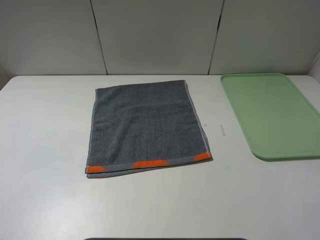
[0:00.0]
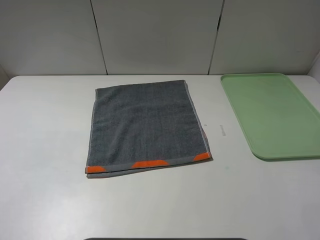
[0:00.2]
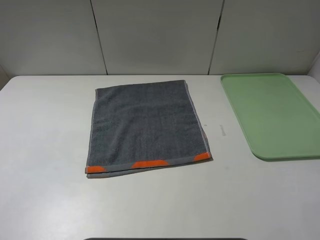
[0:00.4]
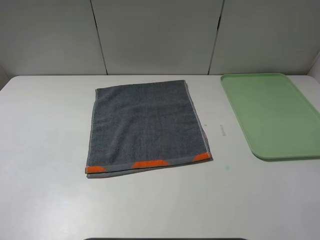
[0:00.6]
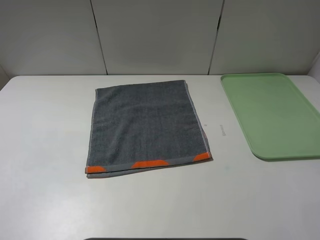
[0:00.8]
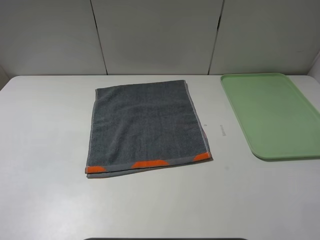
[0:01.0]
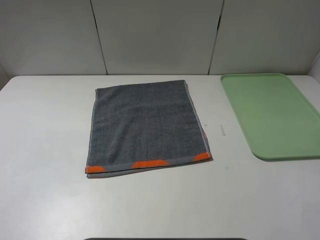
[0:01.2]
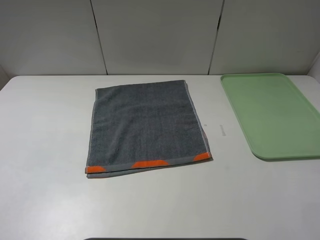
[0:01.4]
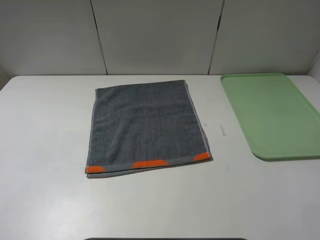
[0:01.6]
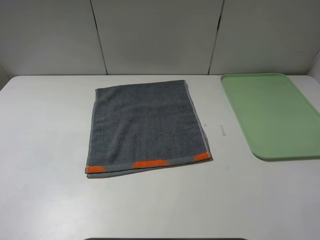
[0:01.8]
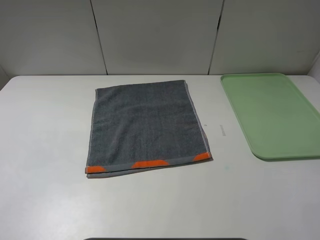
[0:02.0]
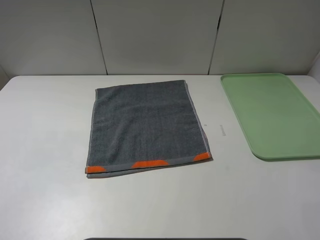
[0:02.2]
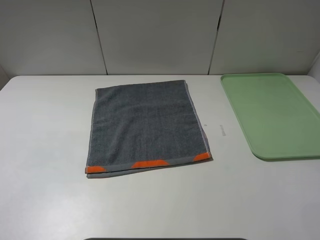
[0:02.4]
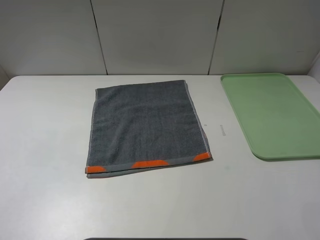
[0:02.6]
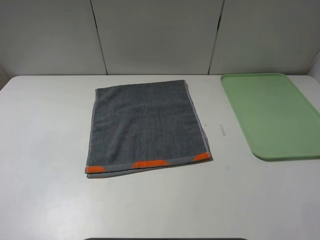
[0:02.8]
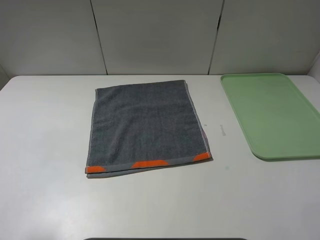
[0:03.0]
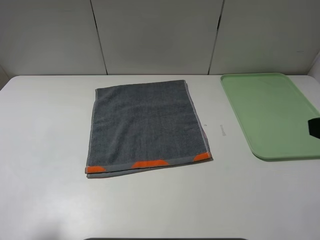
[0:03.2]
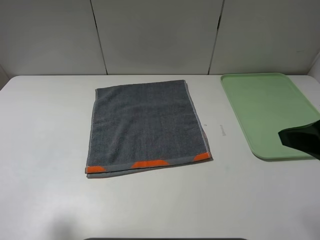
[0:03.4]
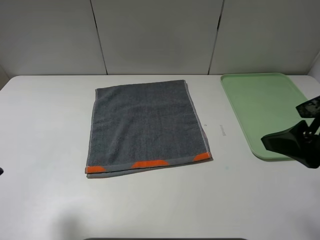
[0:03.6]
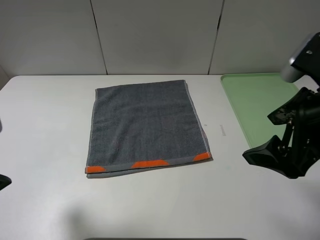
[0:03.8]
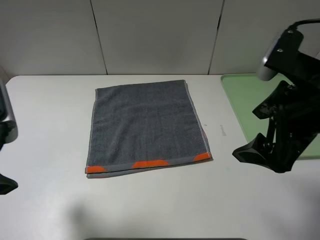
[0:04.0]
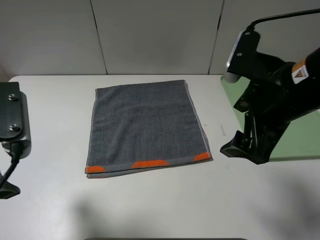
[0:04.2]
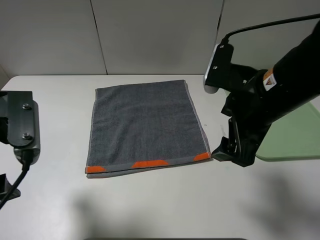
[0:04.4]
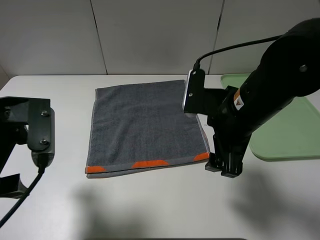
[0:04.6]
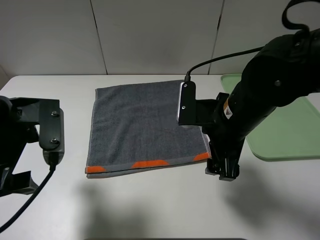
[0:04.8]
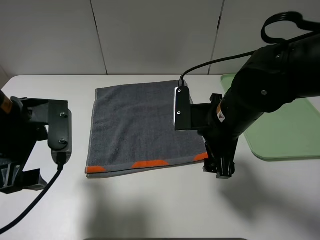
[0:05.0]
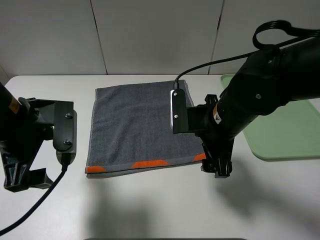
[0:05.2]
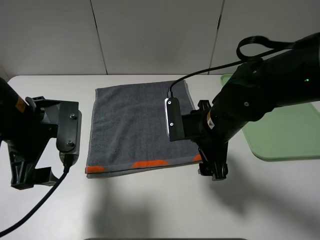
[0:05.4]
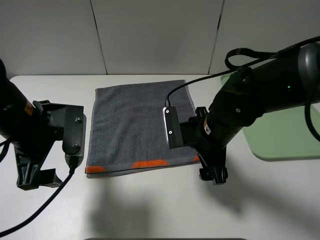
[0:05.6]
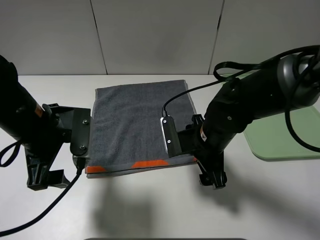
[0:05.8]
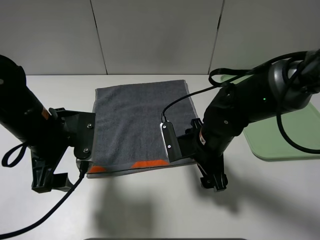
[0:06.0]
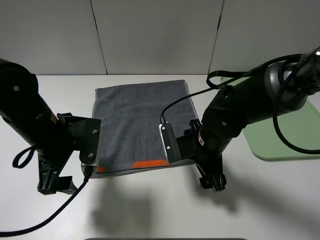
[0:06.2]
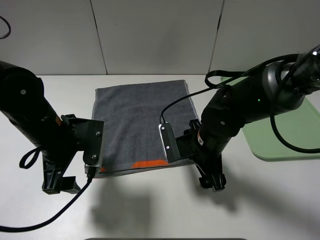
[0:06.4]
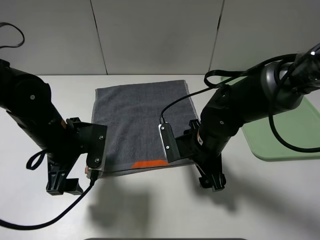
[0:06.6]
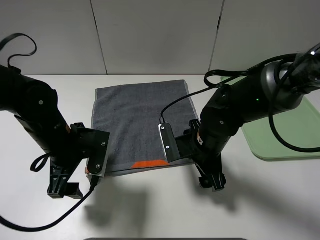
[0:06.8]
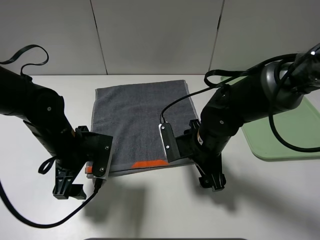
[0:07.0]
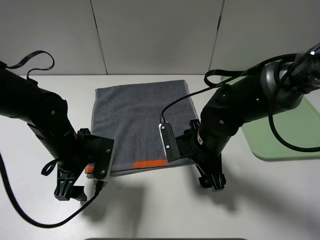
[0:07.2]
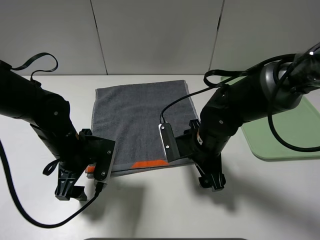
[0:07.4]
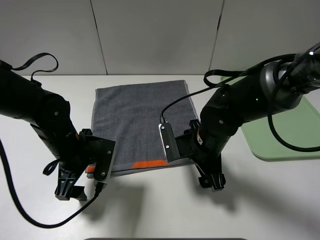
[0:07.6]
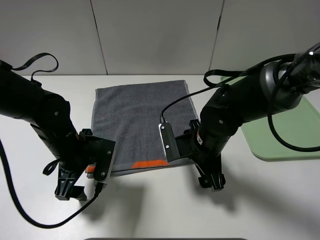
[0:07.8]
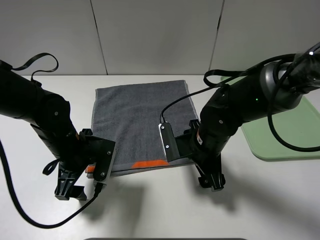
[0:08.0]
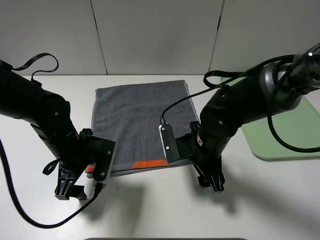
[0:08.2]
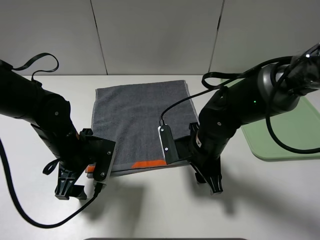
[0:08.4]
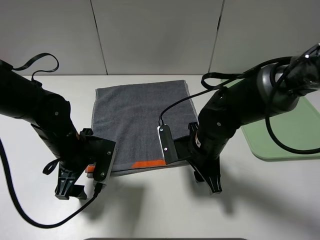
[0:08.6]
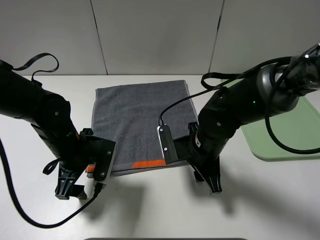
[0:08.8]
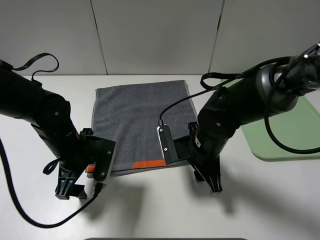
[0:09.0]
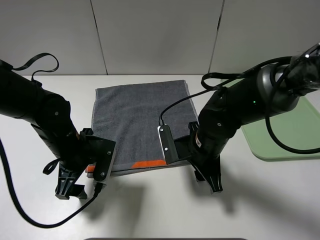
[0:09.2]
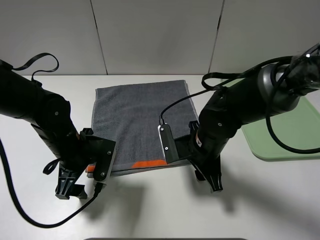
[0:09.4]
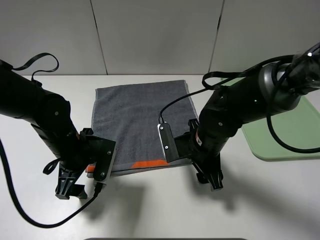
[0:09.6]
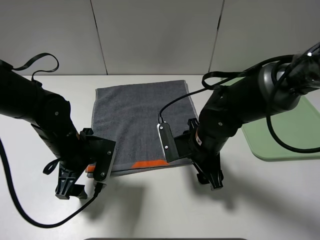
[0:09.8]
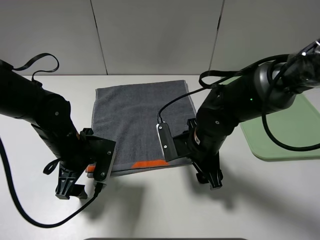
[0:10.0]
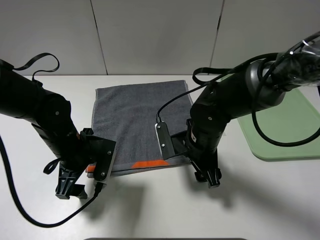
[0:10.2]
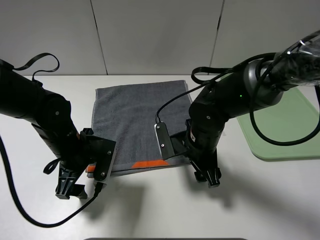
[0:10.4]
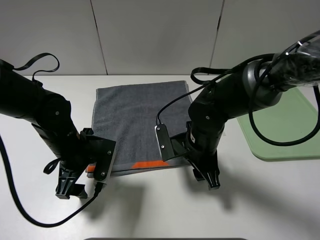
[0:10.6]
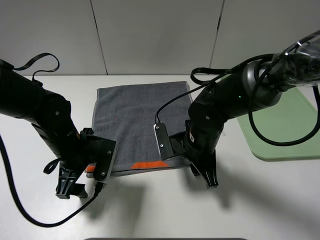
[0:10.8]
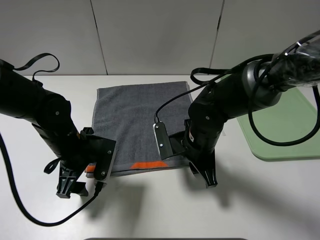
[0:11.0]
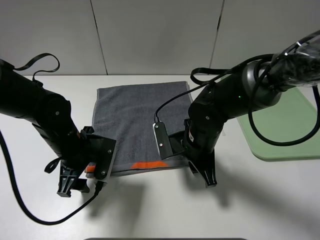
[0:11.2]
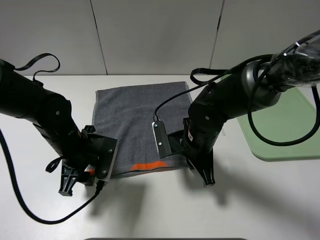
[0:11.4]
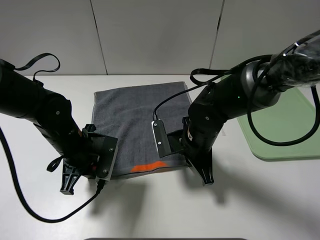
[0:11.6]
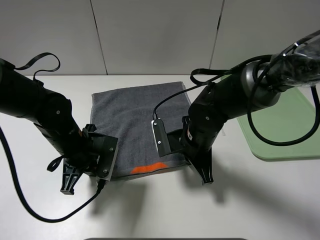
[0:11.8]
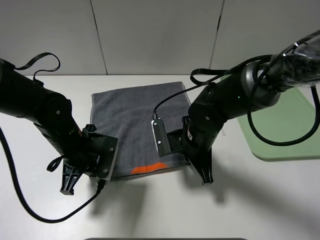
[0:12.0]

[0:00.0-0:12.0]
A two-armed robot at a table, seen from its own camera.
0:00.0 to 0:01.6: The two grippers keep their place.
0:03.0 to 0:04.4: The left gripper is displaced forward and to the right by roughly 10 cm. Meanwhile the right gripper shifts roughly 20 cm to the left, forward and downward.
0:04.4 to 0:06.0: The left gripper heads downward and forward, covering about 10 cm. The right gripper heads downward, covering approximately 15 cm.
0:06.0 to 0:07.6: The left gripper goes roughly 10 cm downward.
0:07.6 to 0:09.0: The right gripper closes.
0:09.0 to 0:10.4: The grippers move only a little.
0:10.4 to 0:12.0: The left gripper closes up. Meanwhile the right gripper closes its fingers.

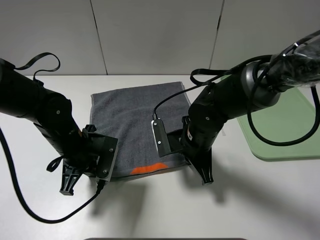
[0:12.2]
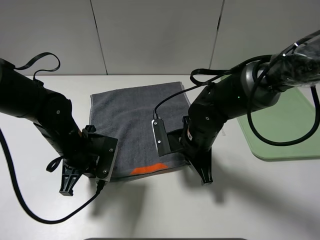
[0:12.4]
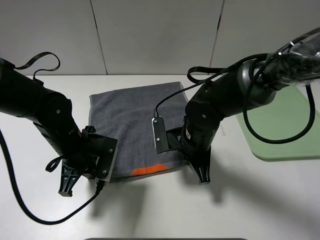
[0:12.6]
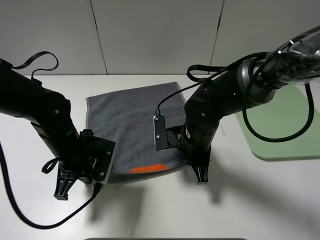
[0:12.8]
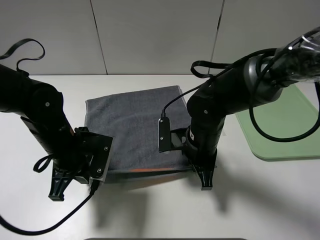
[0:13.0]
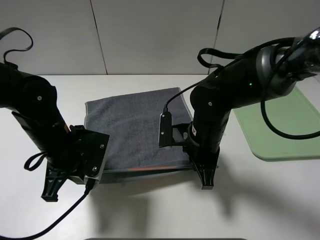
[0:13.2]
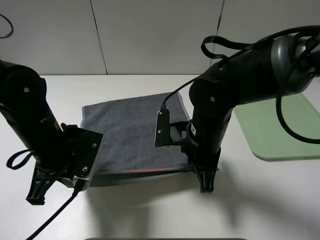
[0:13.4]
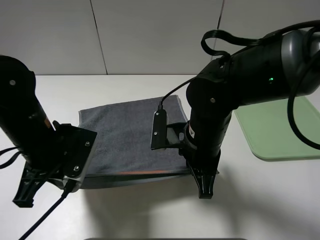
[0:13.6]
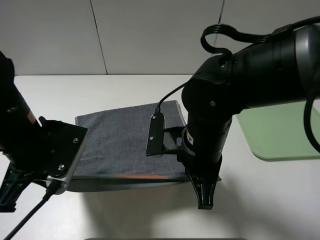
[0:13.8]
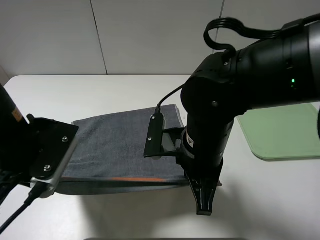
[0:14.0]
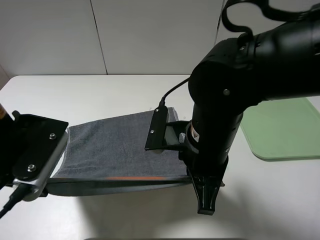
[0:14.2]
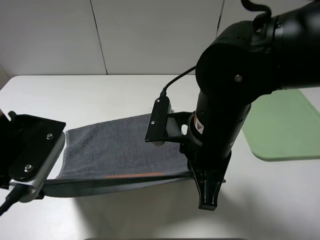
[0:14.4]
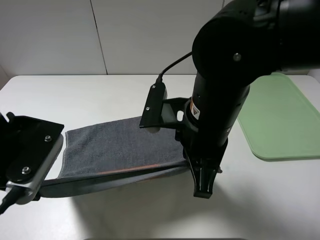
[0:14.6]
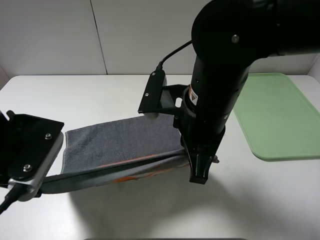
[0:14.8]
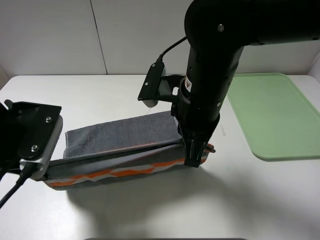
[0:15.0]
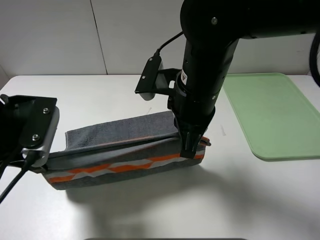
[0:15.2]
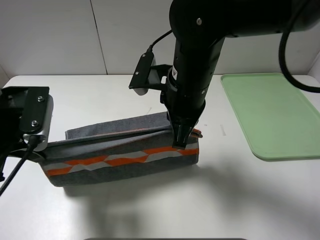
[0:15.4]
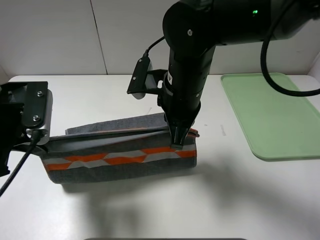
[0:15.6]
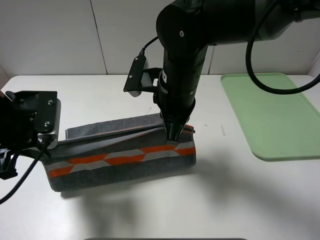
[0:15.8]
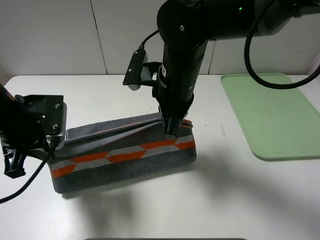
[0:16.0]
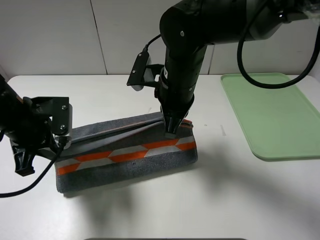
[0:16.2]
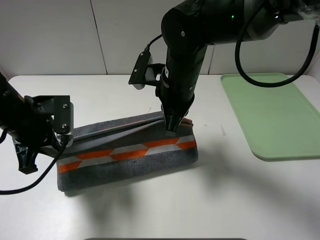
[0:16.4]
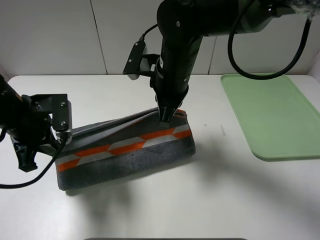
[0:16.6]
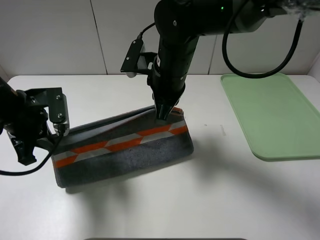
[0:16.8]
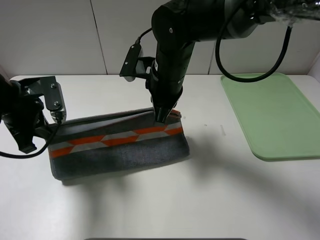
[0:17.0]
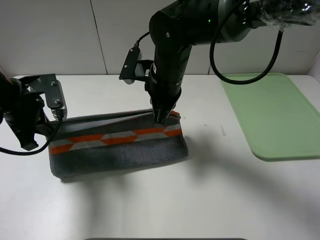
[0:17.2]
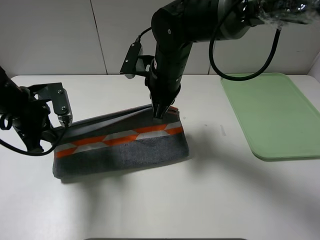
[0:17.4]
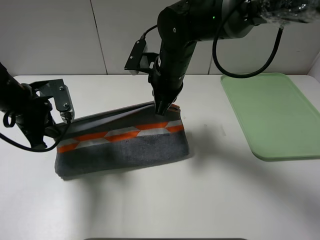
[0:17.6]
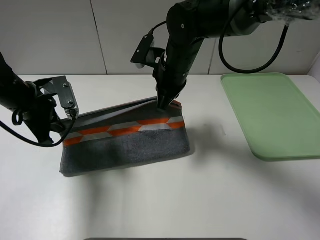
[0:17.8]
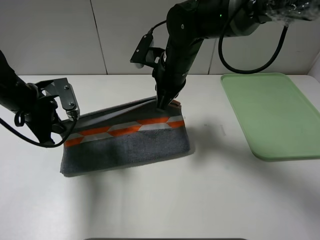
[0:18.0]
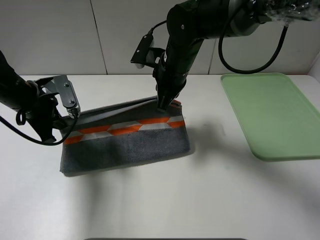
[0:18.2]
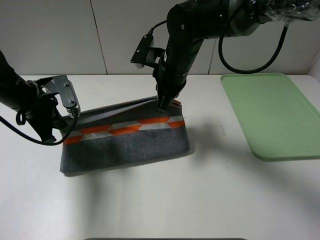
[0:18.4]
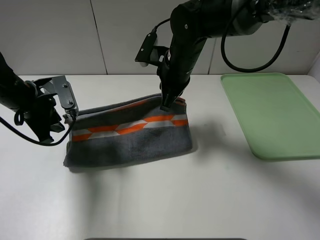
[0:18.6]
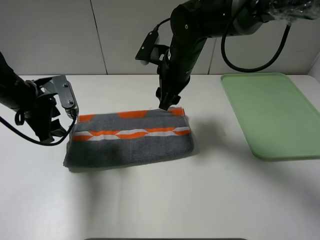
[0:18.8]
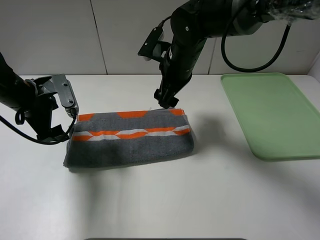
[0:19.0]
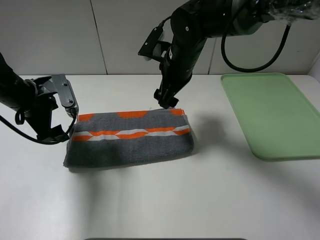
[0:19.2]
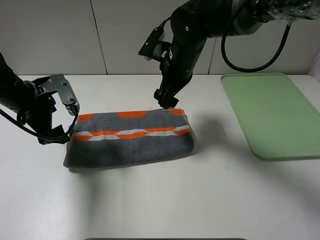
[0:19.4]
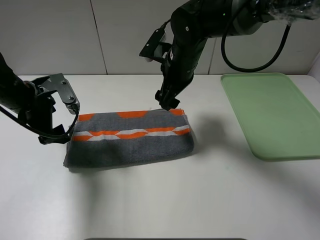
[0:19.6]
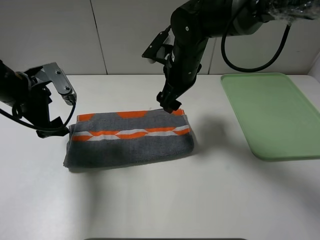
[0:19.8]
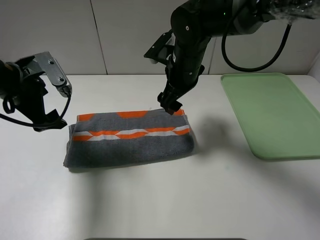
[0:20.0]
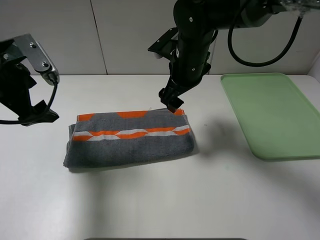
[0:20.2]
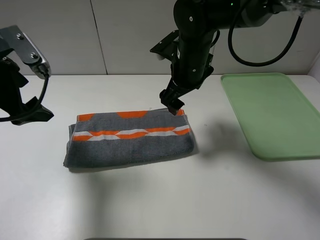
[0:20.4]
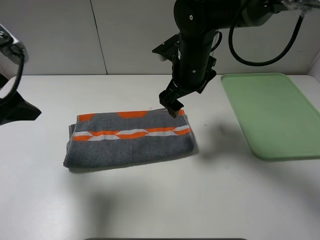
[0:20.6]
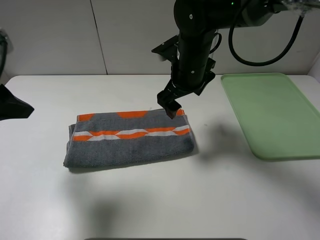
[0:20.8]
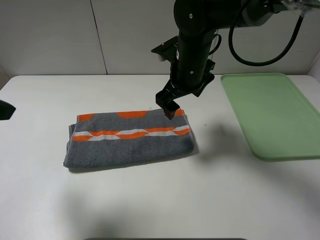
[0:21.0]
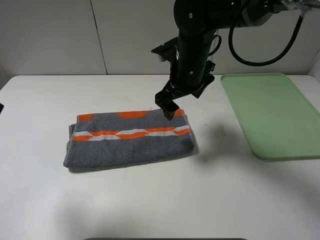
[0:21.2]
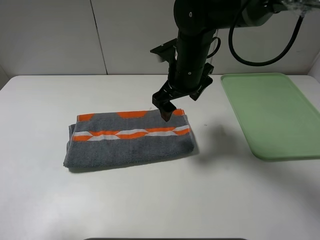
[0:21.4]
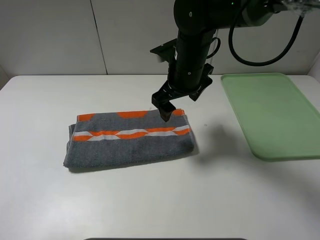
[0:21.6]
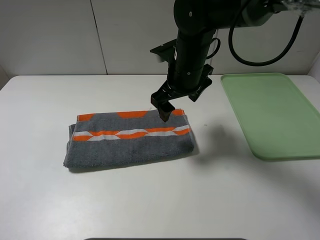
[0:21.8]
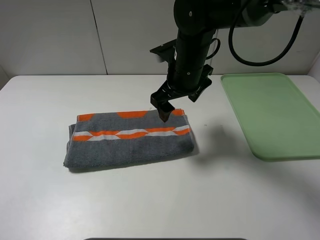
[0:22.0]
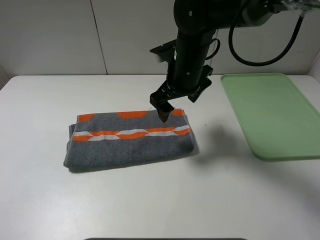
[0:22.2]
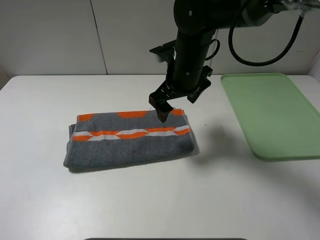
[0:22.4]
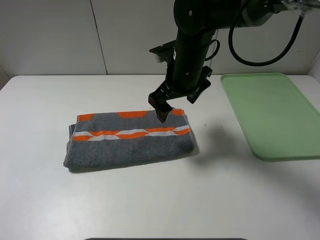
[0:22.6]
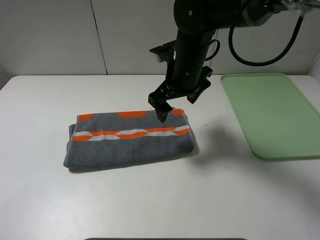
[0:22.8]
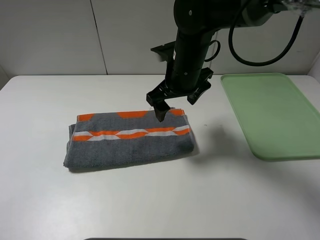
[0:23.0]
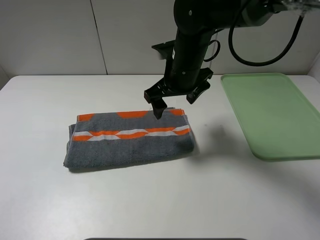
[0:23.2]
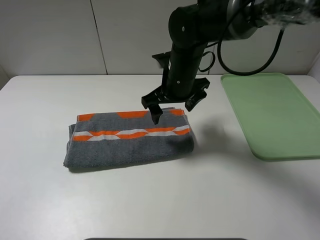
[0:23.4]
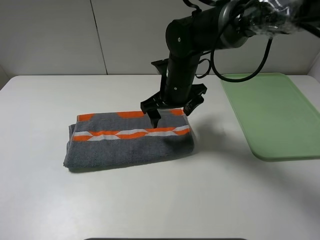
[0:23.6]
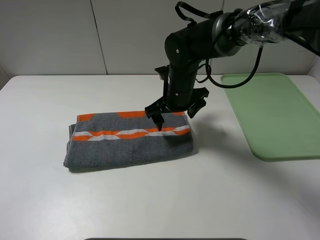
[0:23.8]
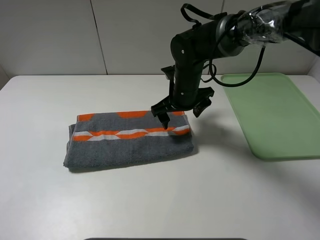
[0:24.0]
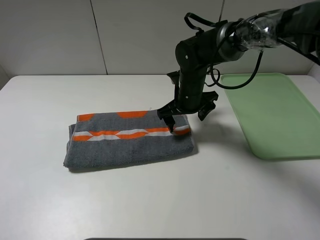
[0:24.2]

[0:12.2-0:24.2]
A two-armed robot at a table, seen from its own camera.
Step, 0:12.2 to 0:18.8: Fold the grey towel upwards.
0:12.2 to 0:13.8: The two grippers go roughly 10 cm upward and backward.
0:13.8 to 0:15.2: The right gripper heads upward, covering roughly 5 cm; the left gripper shifts by approximately 5 cm.
0:15.2 to 0:16.6: The grippers both shift forward by approximately 5 cm.
0:16.6 to 0:18.2: The right gripper ends up some 5 cm from where it was; the left gripper travels forward by roughly 5 cm.
0:18.2 to 0:19.8: The left gripper opens up. Meanwhile the right gripper opens its fingers.
0:19.8 to 0:21.2: The left gripper travels backward and upward by roughly 20 cm.
0:21.2 to 0:22.6: The left gripper heads backward and downward, covering roughly 15 cm.
0:22.6 to 0:24.2: The right gripper heads downward, covering about 10 cm.
